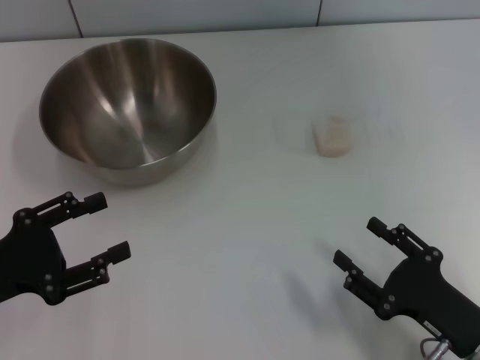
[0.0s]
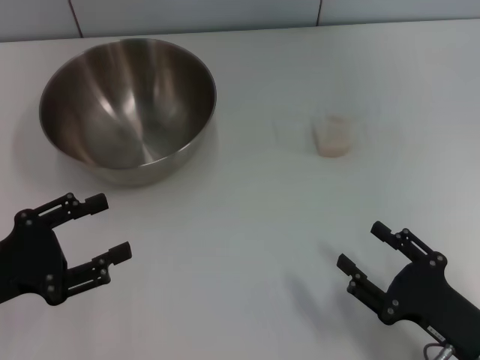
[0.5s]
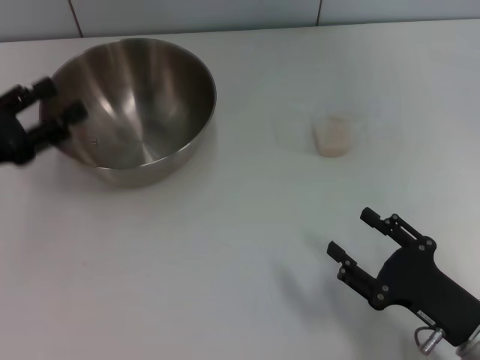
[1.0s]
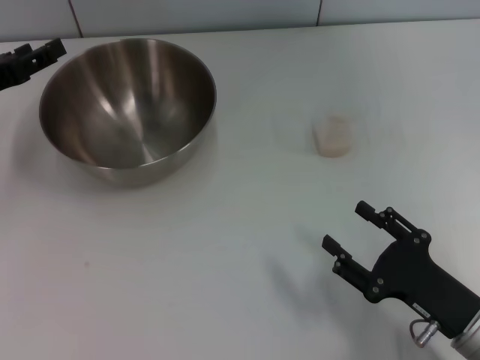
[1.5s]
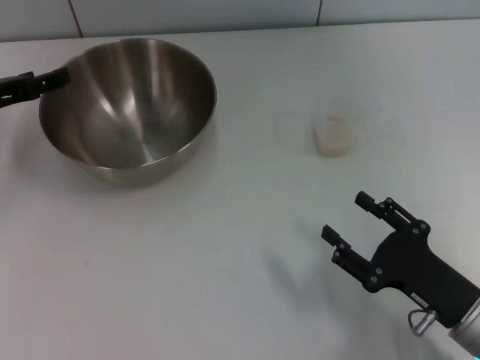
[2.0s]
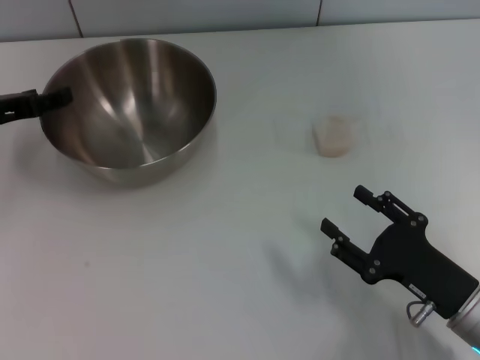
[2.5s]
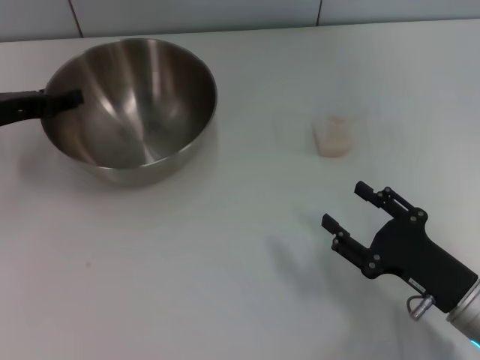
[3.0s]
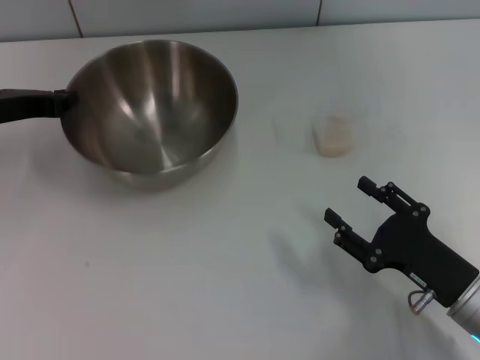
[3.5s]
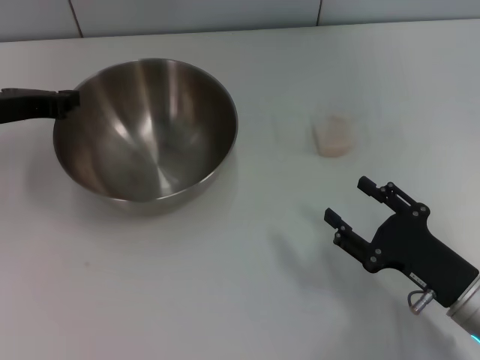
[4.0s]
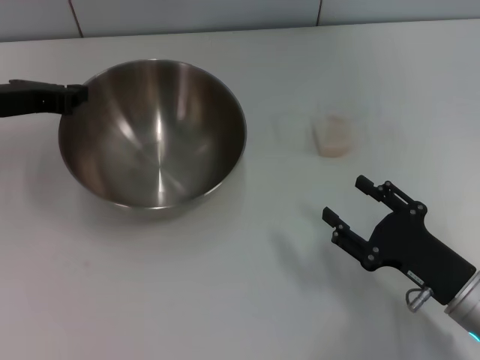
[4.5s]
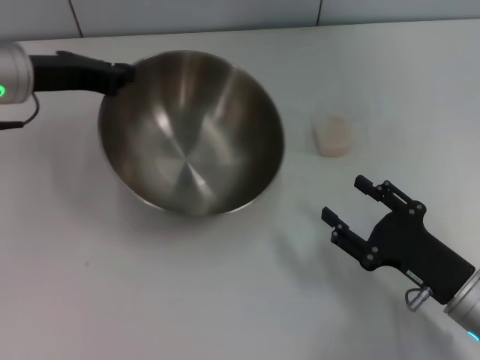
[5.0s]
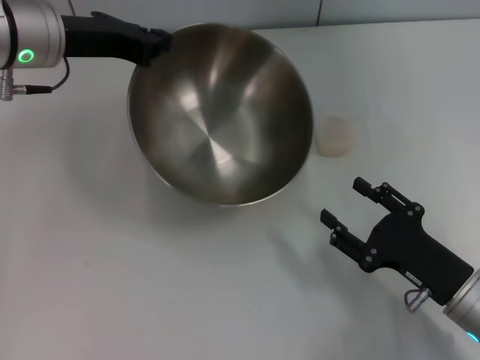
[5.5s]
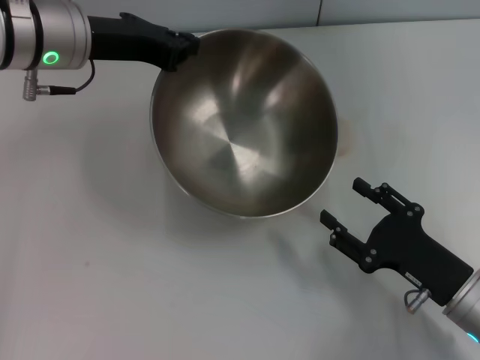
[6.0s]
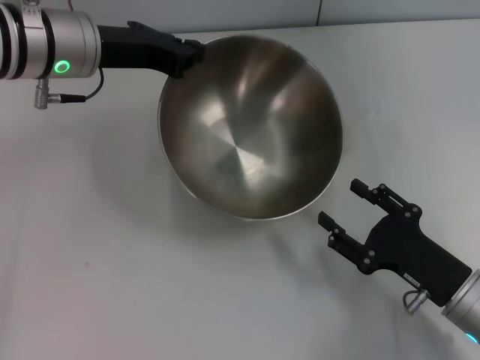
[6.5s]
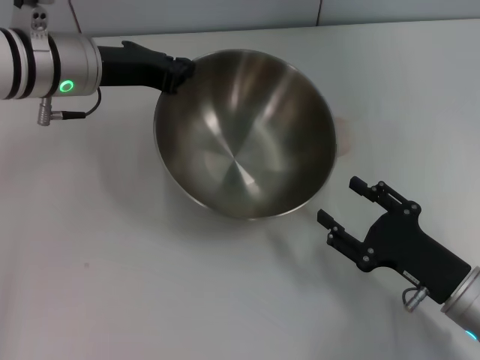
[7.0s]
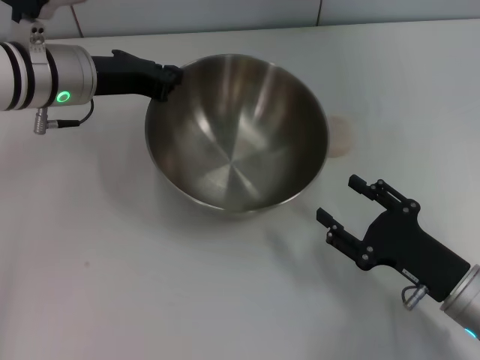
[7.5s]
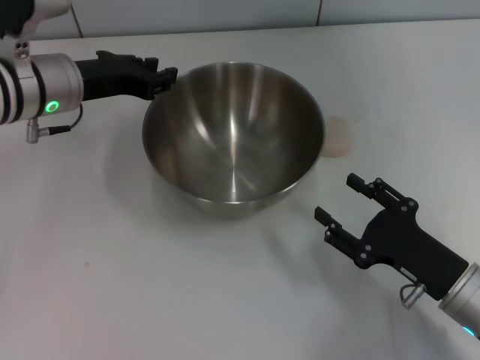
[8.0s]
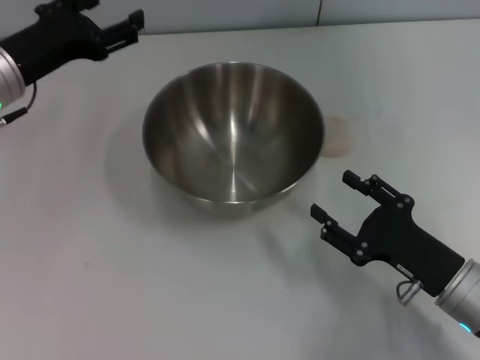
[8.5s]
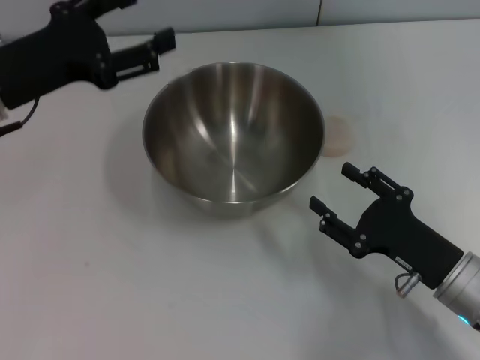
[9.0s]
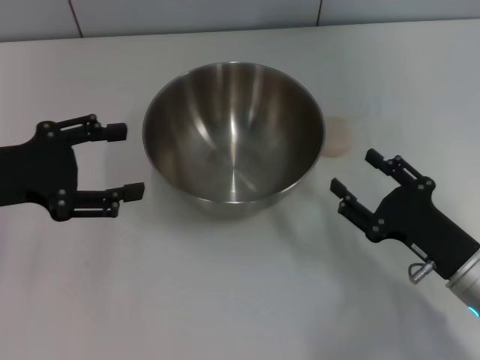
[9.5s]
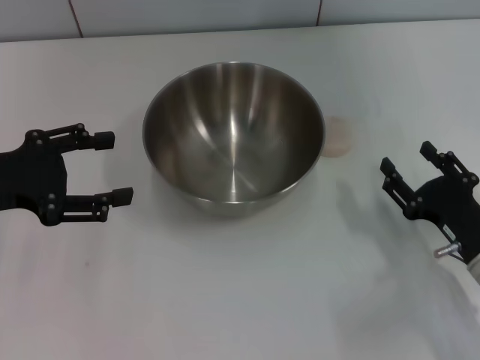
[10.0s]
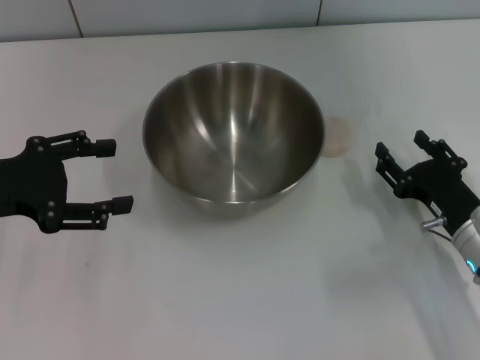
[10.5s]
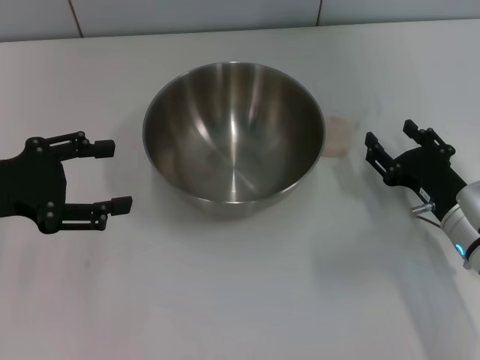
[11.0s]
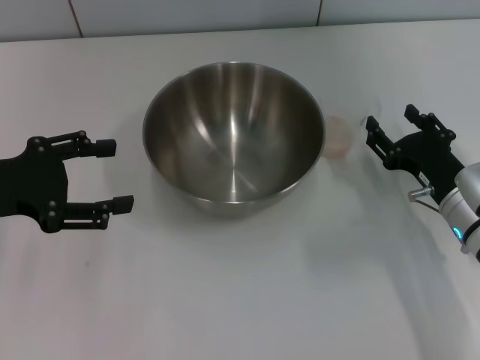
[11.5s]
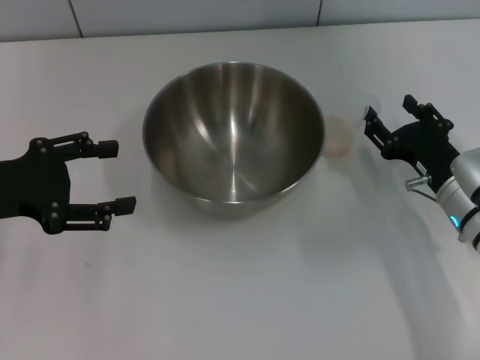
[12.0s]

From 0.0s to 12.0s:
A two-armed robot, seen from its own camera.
Task of the whole recording: Place the bowl in the middle of the table with one hand and pour the rice from the grain cup into it with the other hand.
Step, from 0.0s to 5.0s: Pick up the bowl with the left gripper.
Step, from 5.5s to 8.0s: Place the bowl in the center of view with the left gripper.
From 0.0s to 2.0s: The left gripper heads forward, covering roughly 15 cm.
From 2.0s to 4.0s: The left gripper closes up.
From 4.0s to 6.0s: The left gripper goes about 15 cm to the right and upward.
From 6.0s to 8.0s: The left gripper goes approximately 5 cm downward.
From 8.0s to 10.0s: The left gripper moves backward and to the left, some 15 cm, and opens its fingers.
From 10.0s to 12.0s: The right gripper goes about 10 cm forward.

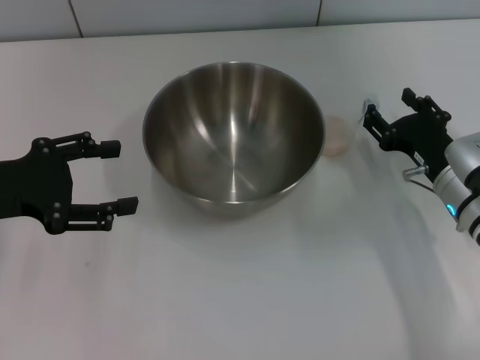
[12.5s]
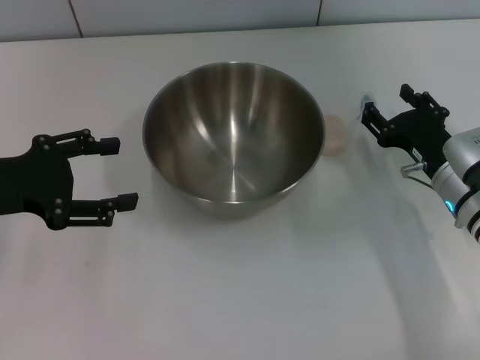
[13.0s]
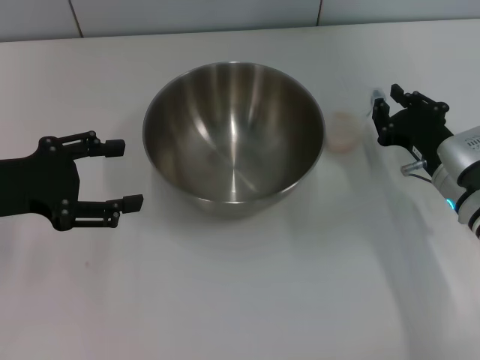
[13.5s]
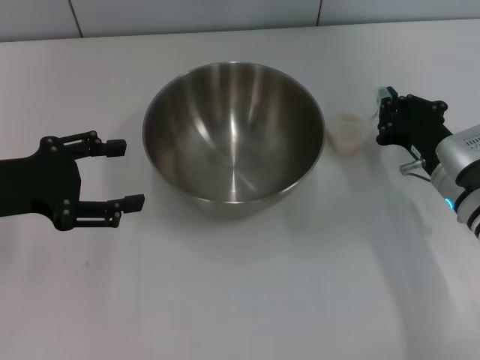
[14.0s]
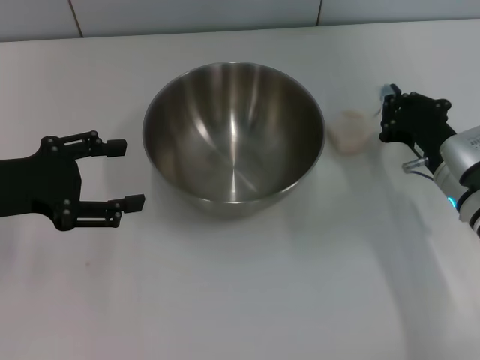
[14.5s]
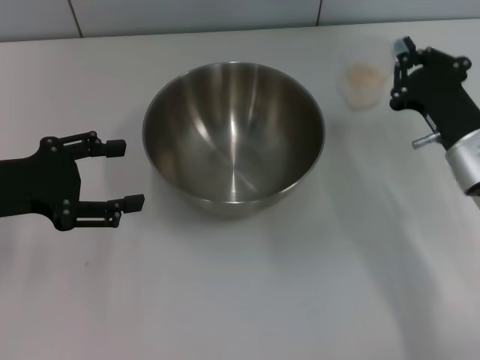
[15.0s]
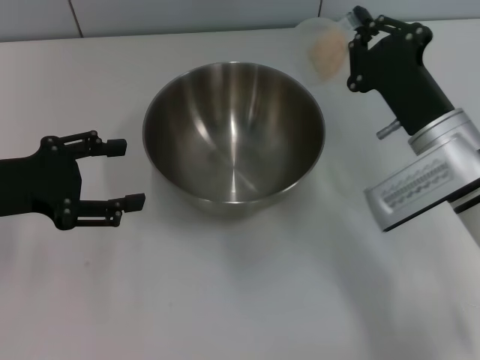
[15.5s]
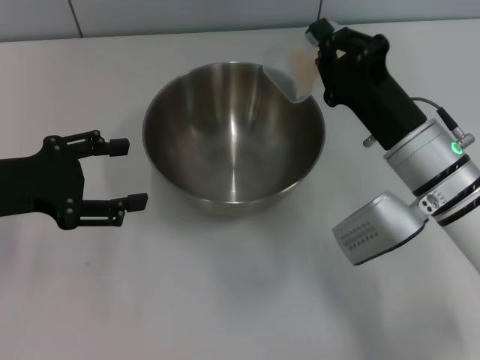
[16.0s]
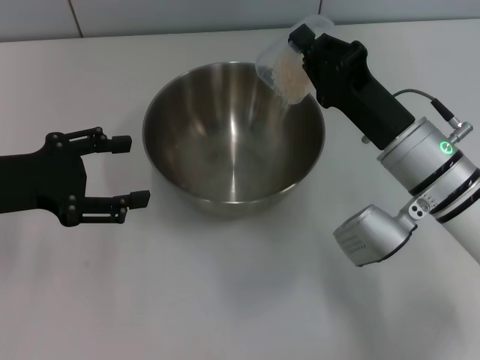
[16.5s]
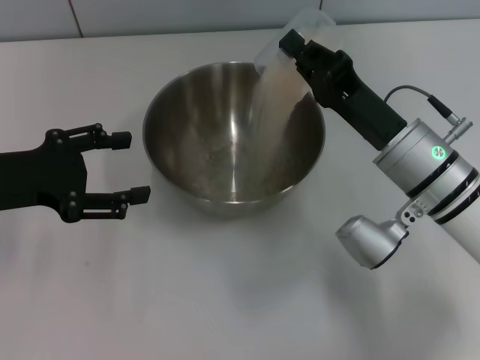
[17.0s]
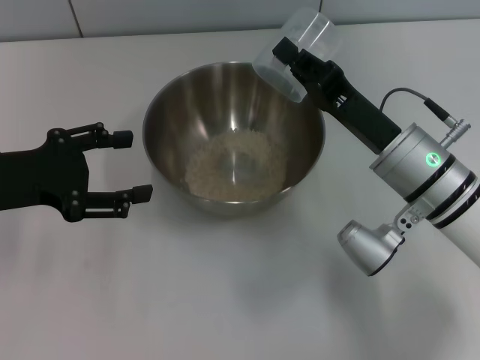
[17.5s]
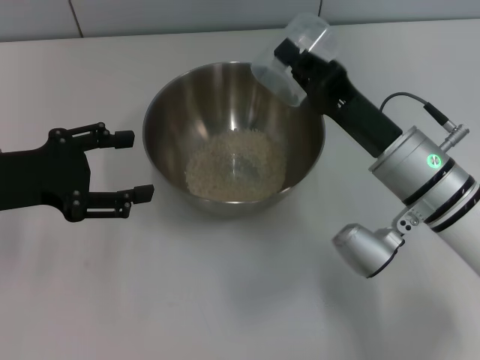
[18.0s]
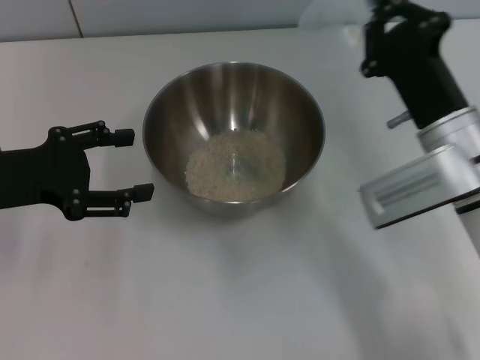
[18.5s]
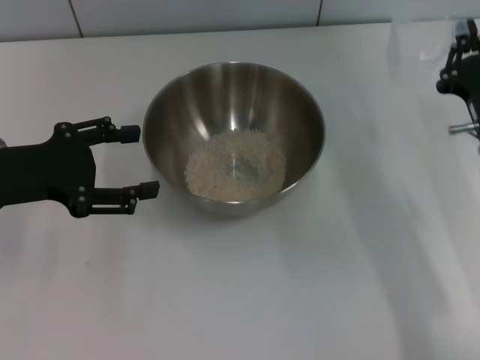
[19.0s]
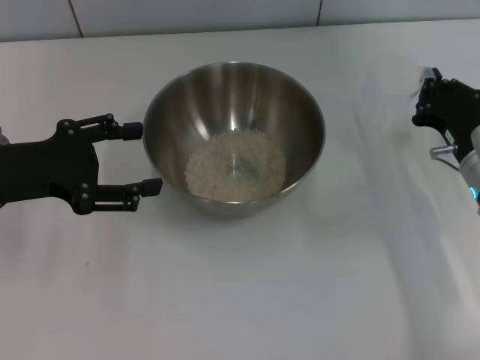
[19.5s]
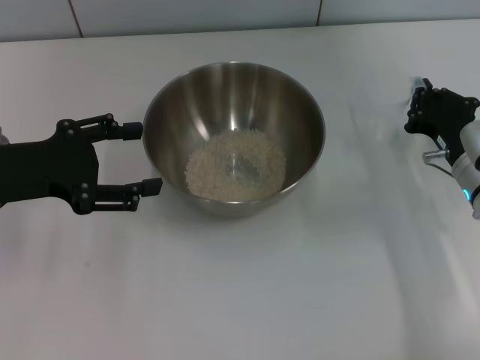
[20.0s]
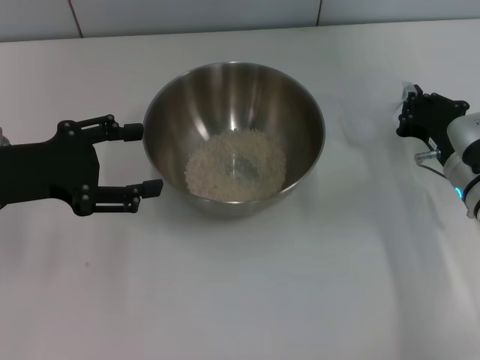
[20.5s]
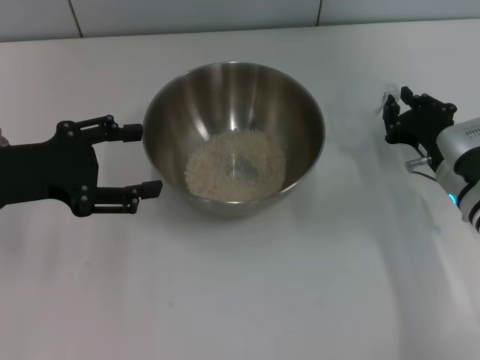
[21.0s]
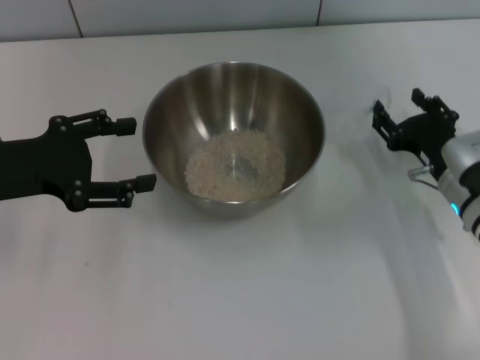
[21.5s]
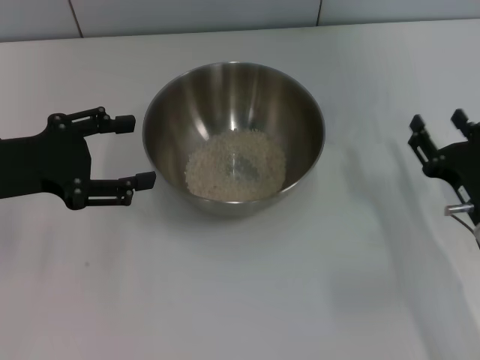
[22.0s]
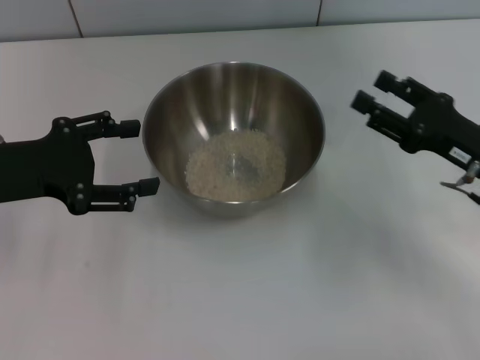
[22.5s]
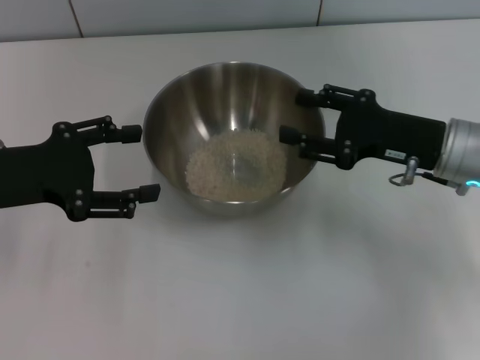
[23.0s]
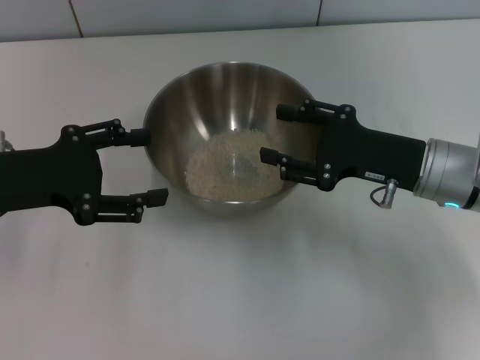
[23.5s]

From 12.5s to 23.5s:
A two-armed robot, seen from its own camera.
Task of the whole recording: Place the bowl in the middle of the table with one hand and pour the rice from the grain cup into it with the other hand.
Step, from 12.5s to 15.0s: Pick up the cup with rice in it with the right gripper.
Step, from 15.5s to 18.0s: Pour the rice from the cup into the bowl with the right gripper.
Step, from 19.0s to 21.5s: Place the cup on the table with the right gripper.
From 12.5s to 14.5s: The right gripper closes its fingers.
From 14.5s to 16.0s: The right gripper heads to the left and upward, covering roughly 10 cm.
From 18.0s to 20.0s: The right gripper goes some 10 cm to the right and downward.
From 20.0s to 21.5s: The right gripper opens its fingers.
From 21.5s to 23.5s: The right gripper goes approximately 5 cm upward, and goes backward and returns, roughly 5 cm each way.
